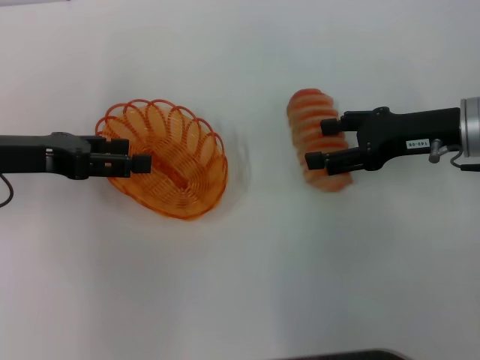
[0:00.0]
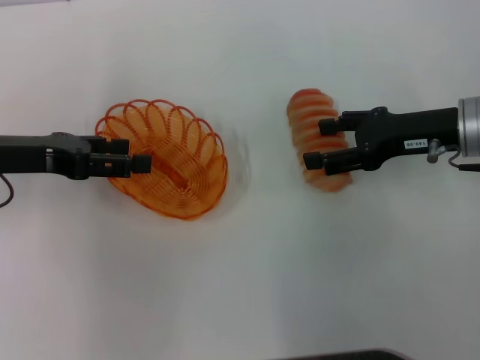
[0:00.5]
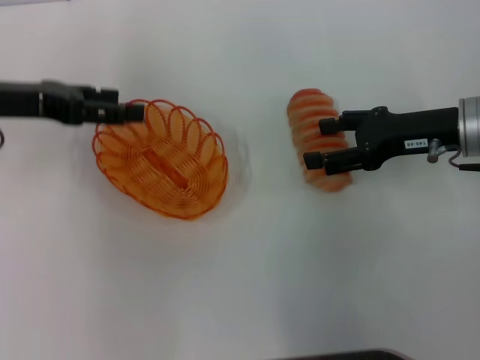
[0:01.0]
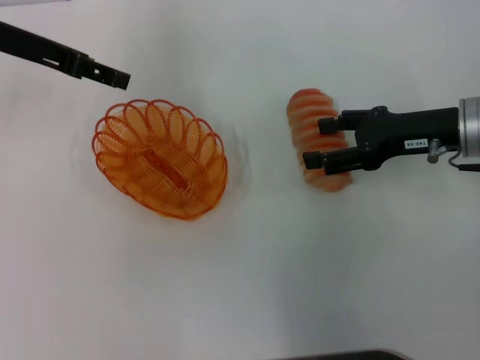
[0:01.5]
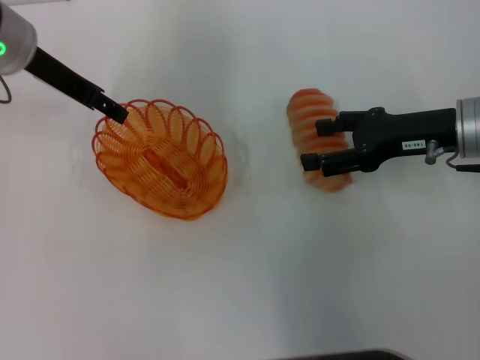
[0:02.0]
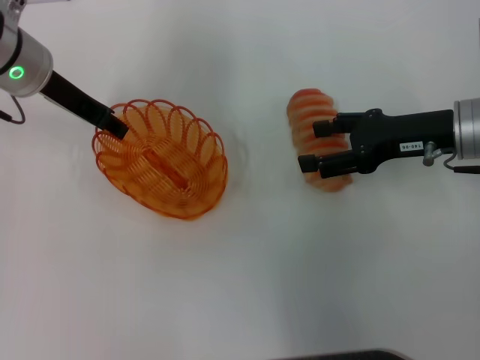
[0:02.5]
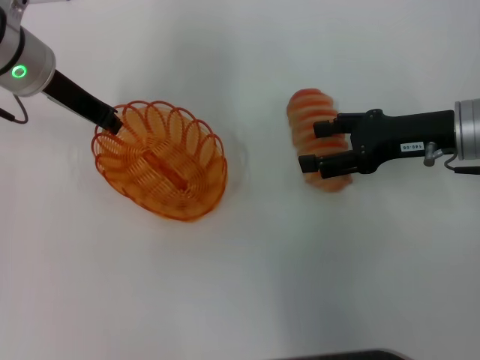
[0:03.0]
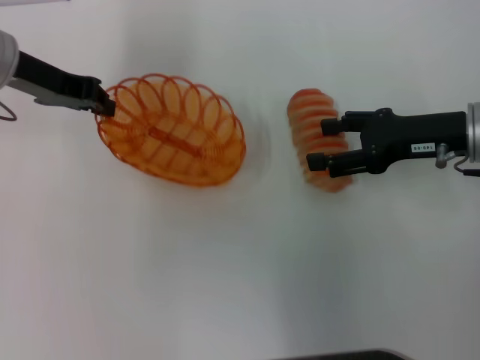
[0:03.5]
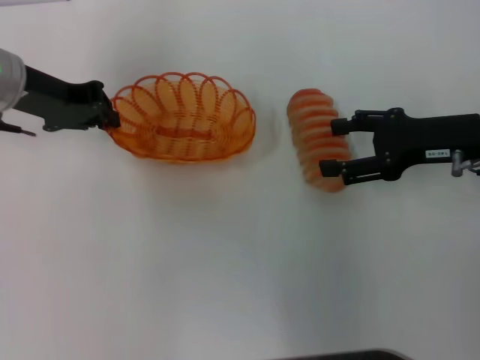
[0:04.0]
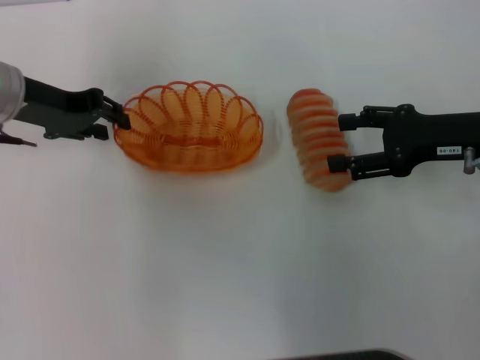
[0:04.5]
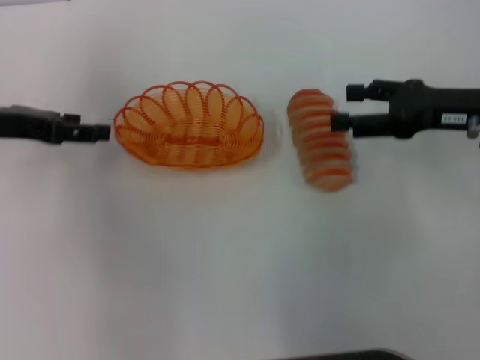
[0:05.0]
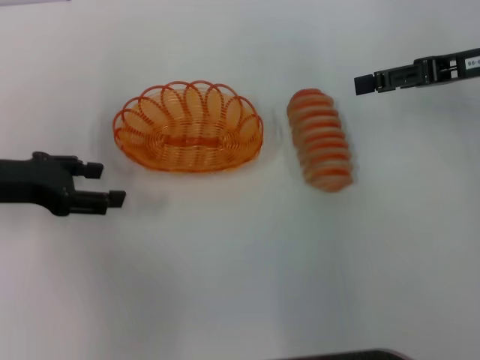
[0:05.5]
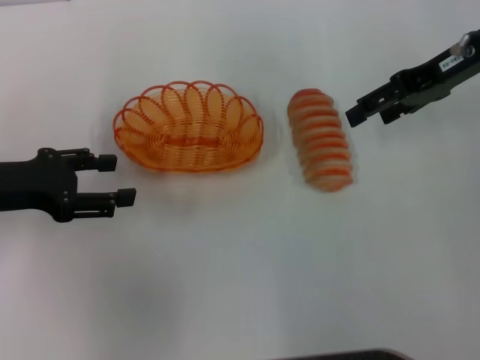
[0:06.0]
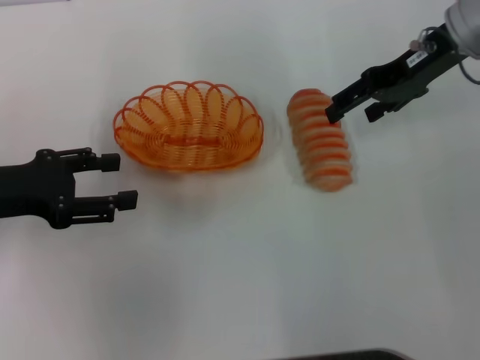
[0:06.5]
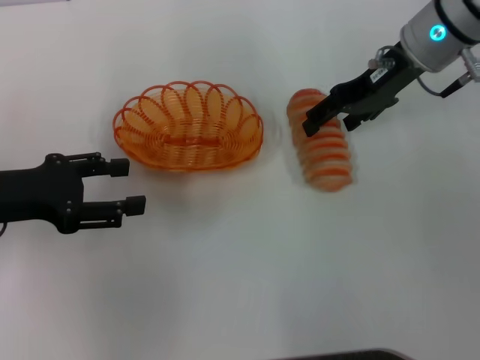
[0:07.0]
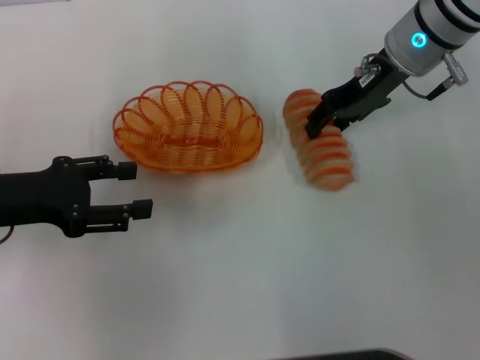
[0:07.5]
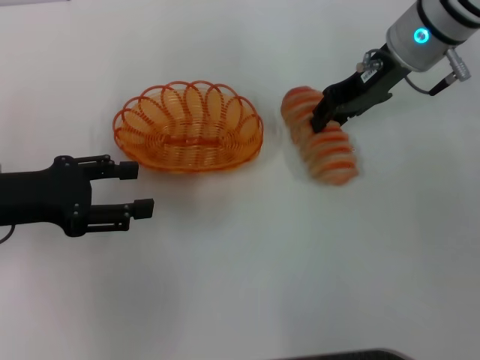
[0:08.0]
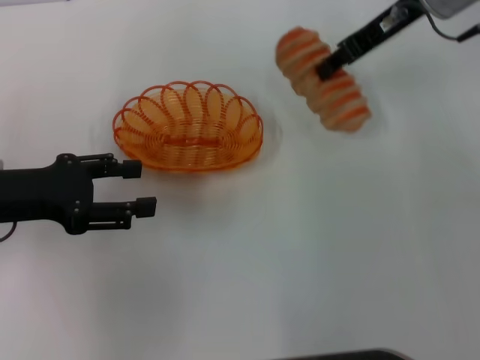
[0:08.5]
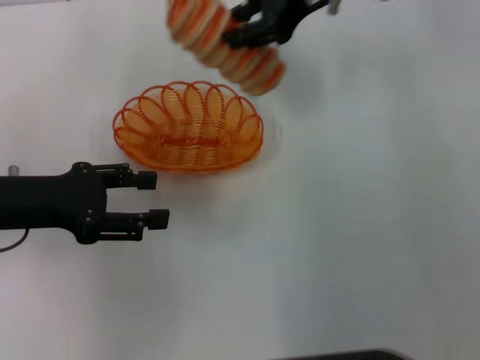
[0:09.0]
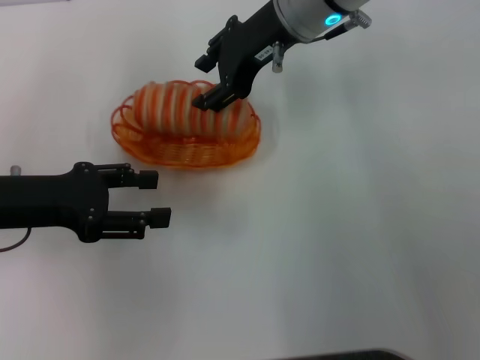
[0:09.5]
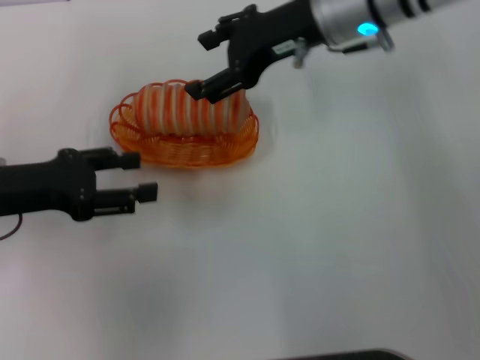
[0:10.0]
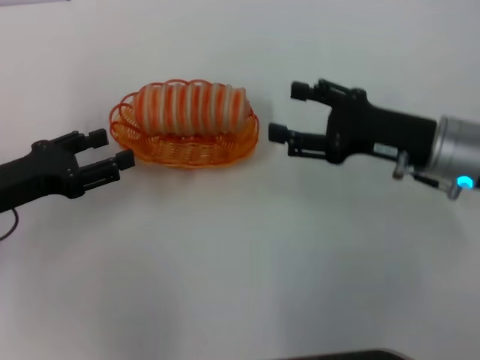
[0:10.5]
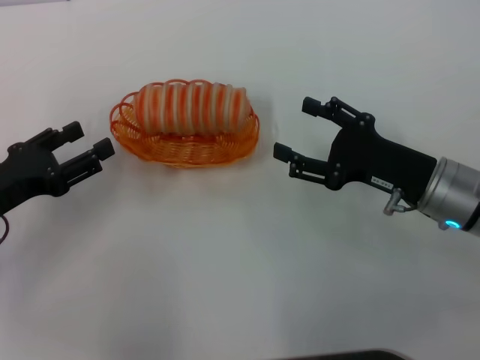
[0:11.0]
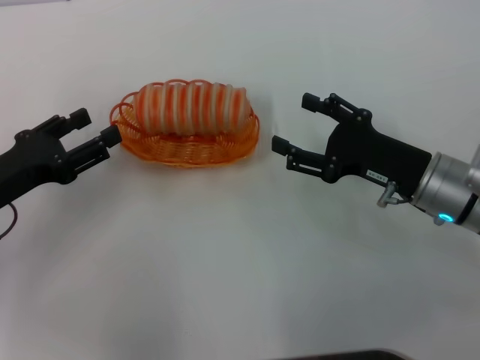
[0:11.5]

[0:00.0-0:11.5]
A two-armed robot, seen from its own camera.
Step, 0:00.0 to 0:03.0: Pick up the basket with the left gripper.
Step, 0:03.5 to 0:04.5: Place the basket in the center of view with the left gripper.
Step, 0:05.0 to 0:08.0: Pick up the long bread with the right gripper.
Step, 0:08.5 to 0:09.5: Place the long bread into the basket with the right gripper.
0:00.0 to 0:02.0: The left gripper goes about 15 cm forward, to the right and upward.
0:02.0 to 0:04.0: The left gripper closes up.
0:04.0 to 0:06.0: The left gripper is displaced backward and to the left by about 10 cm, and opens its fingers, while the right gripper heads upward and forward, covering roughly 10 cm.
0:06.0 to 0:07.5: The right gripper heads to the left, covering some 10 cm.
0:07.5 to 0:09.5: The right gripper heads to the left, covering some 10 cm, and closes up.
0:09.5 to 0:11.5: The right gripper shifts about 25 cm backward, downward and to the right, and opens; the left gripper ends up some 5 cm from where it was.
